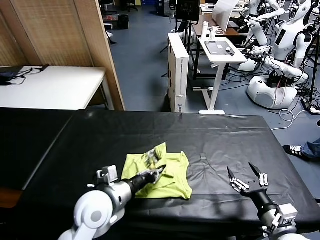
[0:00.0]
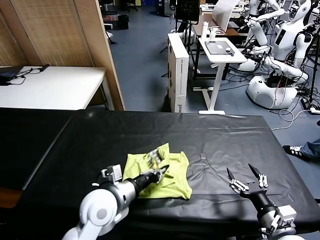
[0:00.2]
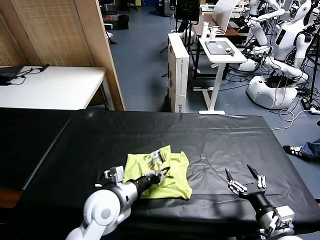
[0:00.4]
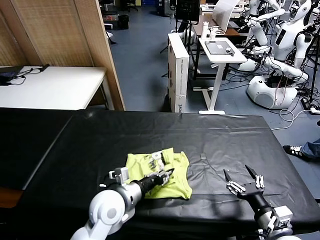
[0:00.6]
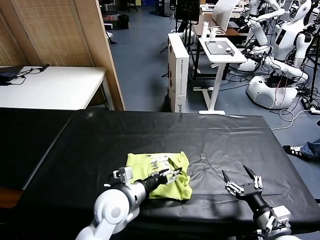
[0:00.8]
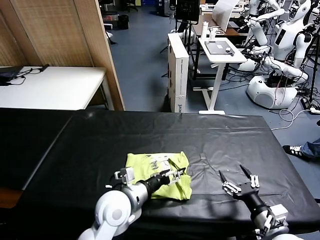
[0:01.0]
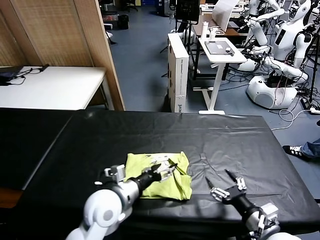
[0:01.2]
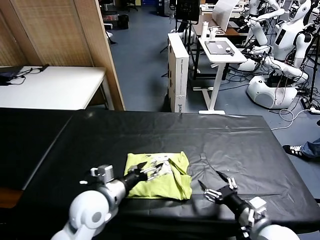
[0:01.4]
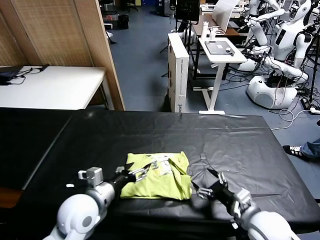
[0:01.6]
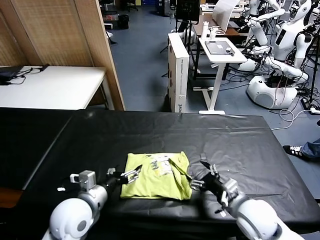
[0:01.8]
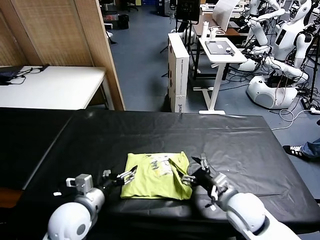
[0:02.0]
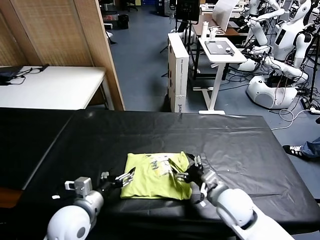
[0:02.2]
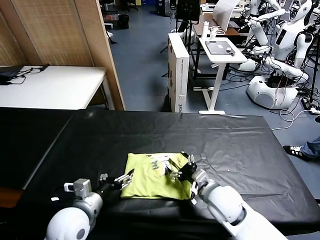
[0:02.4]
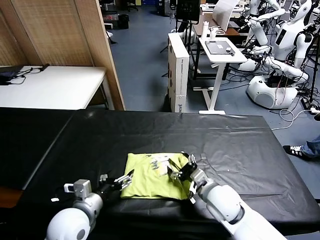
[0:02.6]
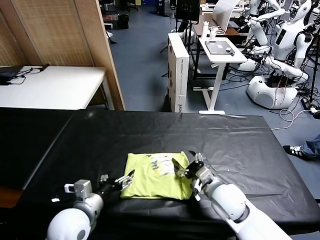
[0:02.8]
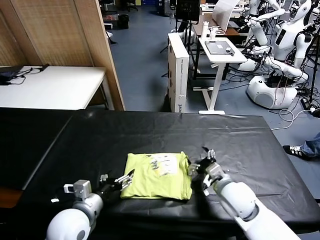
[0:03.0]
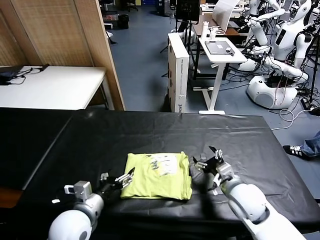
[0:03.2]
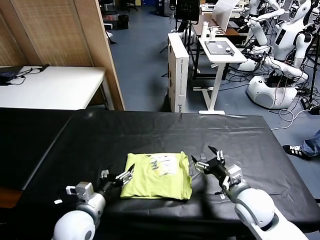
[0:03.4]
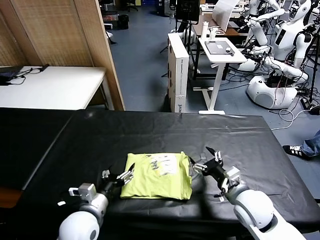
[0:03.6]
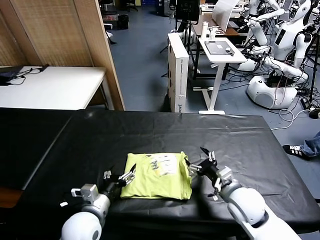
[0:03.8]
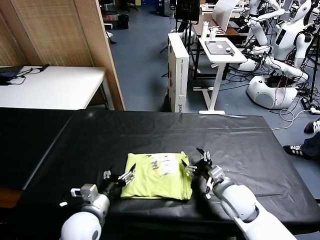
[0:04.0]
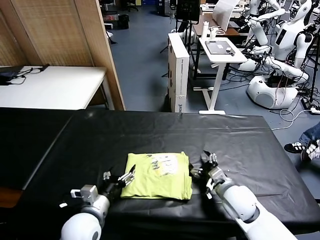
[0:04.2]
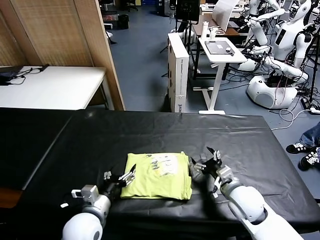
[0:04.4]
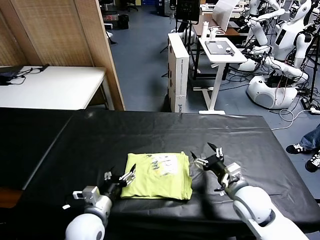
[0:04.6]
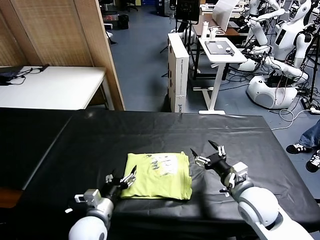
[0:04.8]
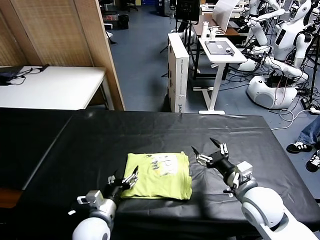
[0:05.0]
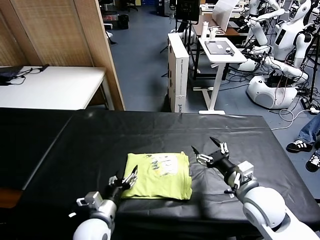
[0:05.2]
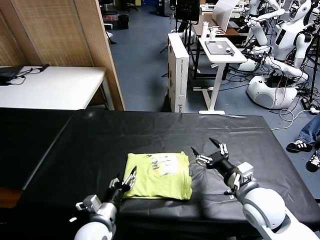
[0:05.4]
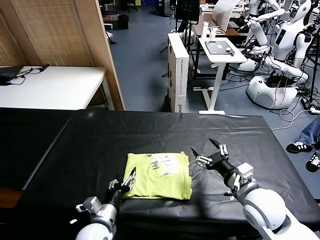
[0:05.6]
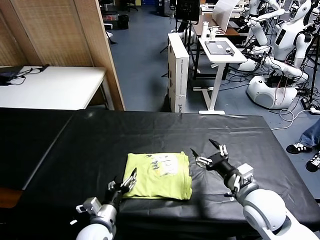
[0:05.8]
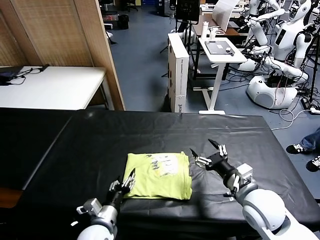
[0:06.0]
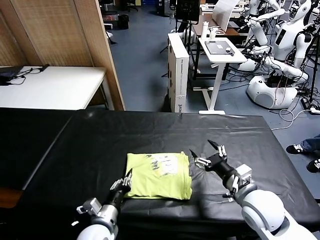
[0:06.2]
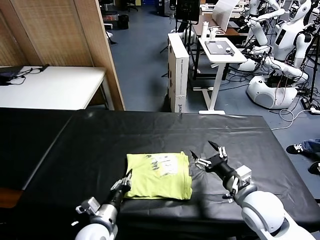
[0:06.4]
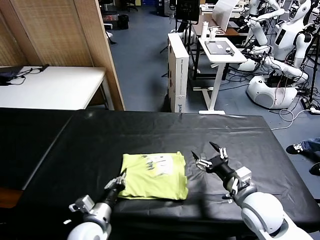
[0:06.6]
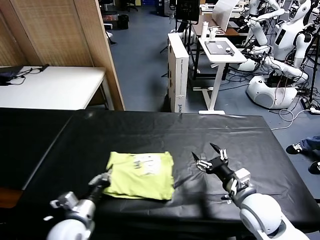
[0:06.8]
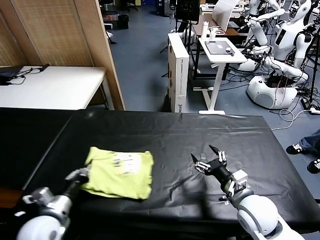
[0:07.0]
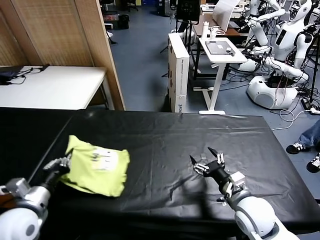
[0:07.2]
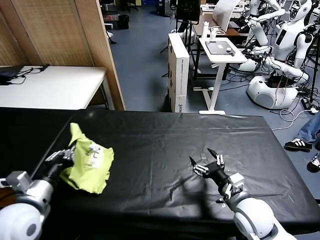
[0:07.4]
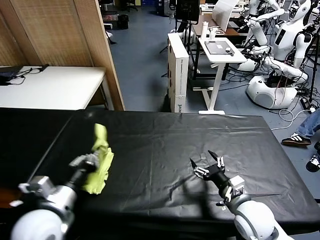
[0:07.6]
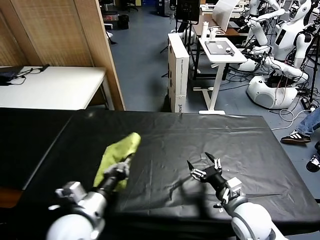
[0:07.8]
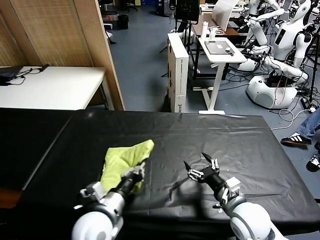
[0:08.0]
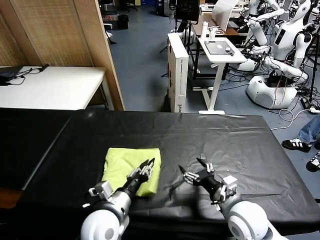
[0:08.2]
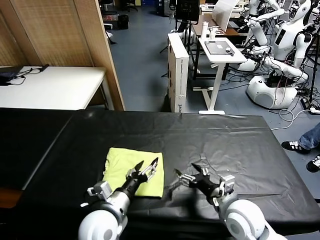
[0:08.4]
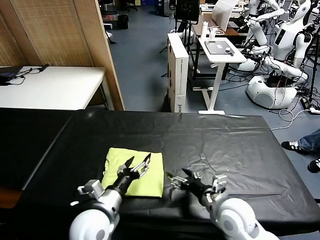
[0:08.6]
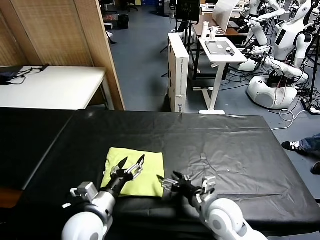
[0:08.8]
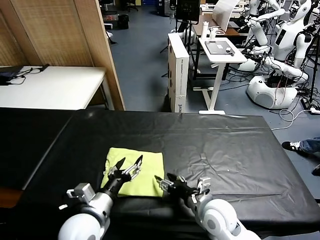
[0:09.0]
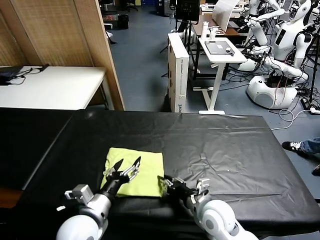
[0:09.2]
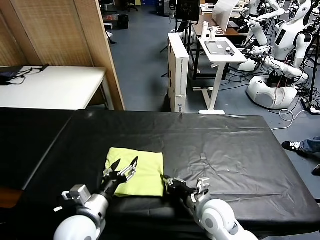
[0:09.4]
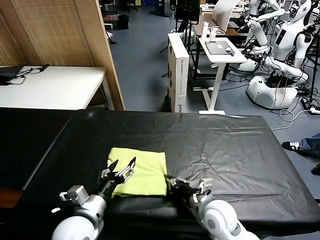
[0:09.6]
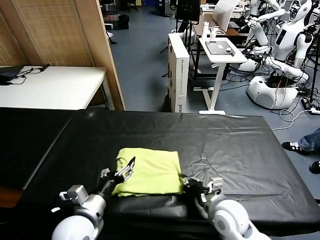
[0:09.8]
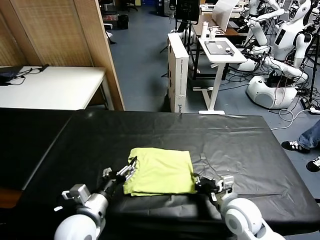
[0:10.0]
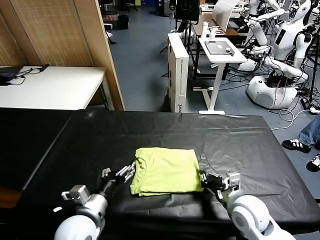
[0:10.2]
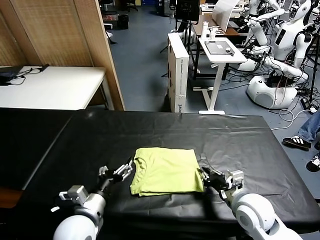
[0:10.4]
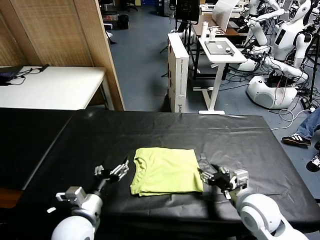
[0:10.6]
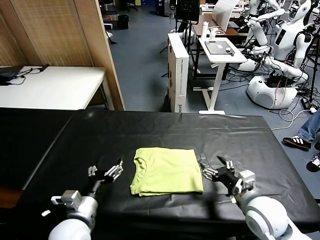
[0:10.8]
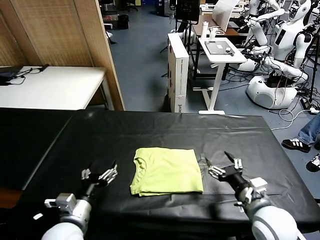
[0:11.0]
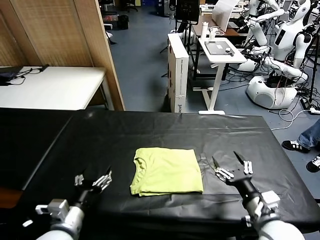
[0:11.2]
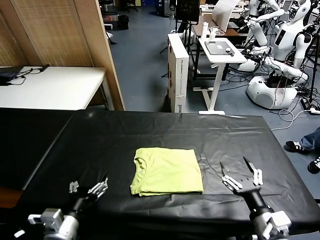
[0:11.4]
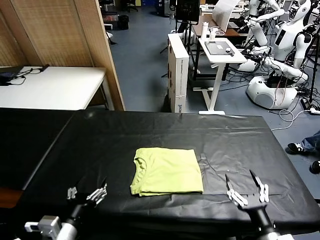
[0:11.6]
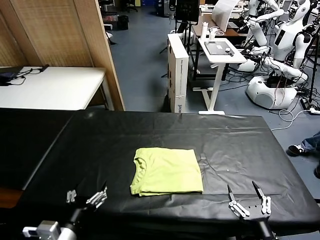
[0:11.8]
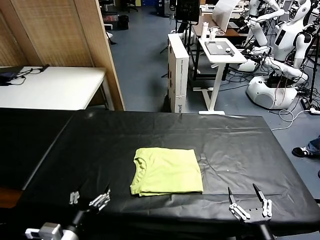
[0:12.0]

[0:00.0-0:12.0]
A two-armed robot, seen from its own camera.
Task of the whole recording: fold and organize the clothes.
Step, 0:01.2 to 0:08.2: Flip the folded clothes over with left gripper.
Step, 0:08.4 to 0:10.4: Drag the clothes to the center of the table.
0:00.0 to 0:01.6: The right gripper ends up approximately 5 cm from where it was. The left gripper opens.
0:01.6 to 0:03.0: The right gripper moves forward and to the left, approximately 10 cm, while the left gripper changes place by roughly 5 cm.
0:03.0 to 0:04.4: There are only small adjustments of the grippers.
0:04.4 to 0:06.0: The left gripper is displaced downward by roughly 5 cm, while the right gripper heads upward, covering some 5 cm.
0:06.0 to 0:07.6: The left gripper moves upward and to the left, about 20 cm, and closes its fingers, while the right gripper moves downward, some 5 cm.
0:07.6 to 0:09.0: The left gripper travels to the right and downward by roughly 10 cm, and opens up, while the right gripper heads to the left, covering about 10 cm.
0:09.0 to 0:10.4: The right gripper shifts roughly 10 cm to the right, and closes.
0:10.4 to 0:12.0: The left gripper moves backward, some 10 cm, while the right gripper heads backward, covering some 20 cm, and opens its fingers.

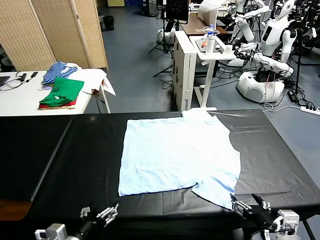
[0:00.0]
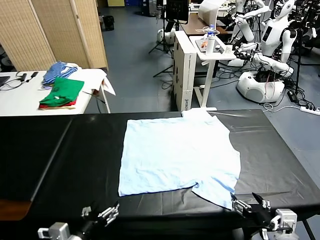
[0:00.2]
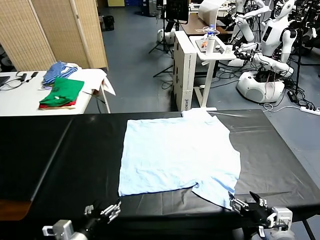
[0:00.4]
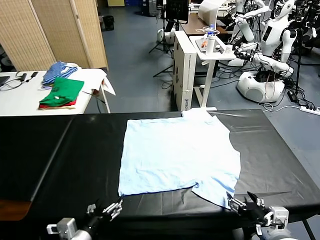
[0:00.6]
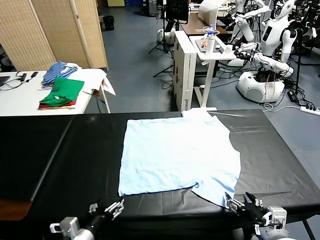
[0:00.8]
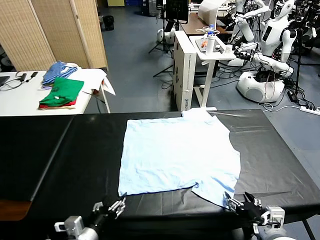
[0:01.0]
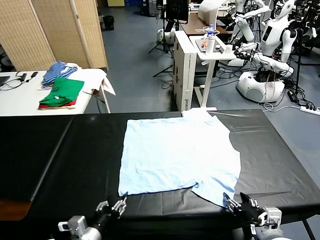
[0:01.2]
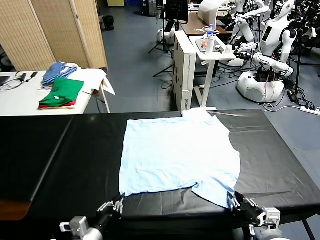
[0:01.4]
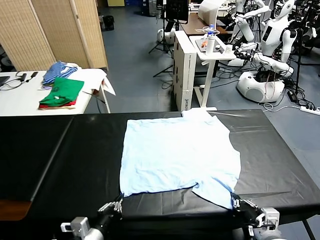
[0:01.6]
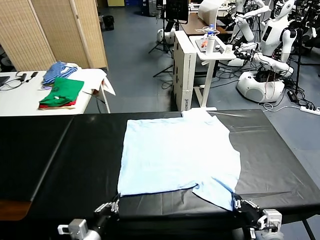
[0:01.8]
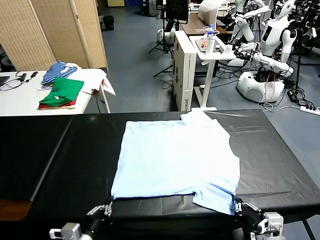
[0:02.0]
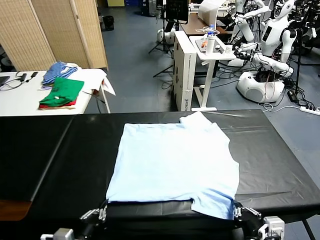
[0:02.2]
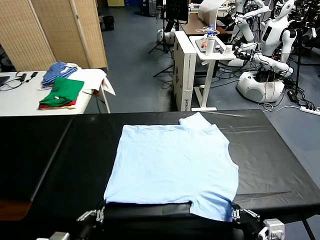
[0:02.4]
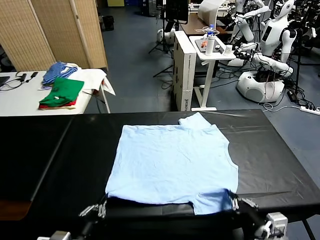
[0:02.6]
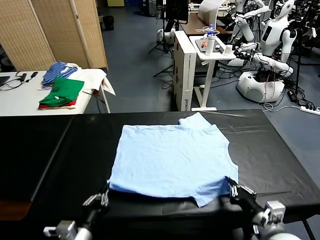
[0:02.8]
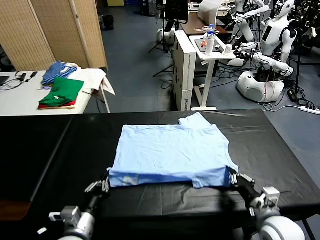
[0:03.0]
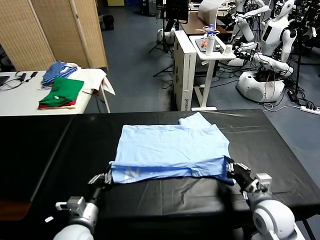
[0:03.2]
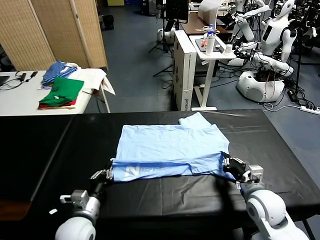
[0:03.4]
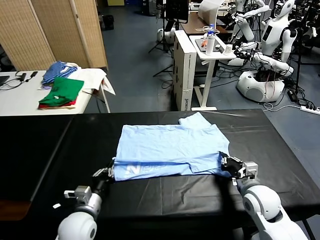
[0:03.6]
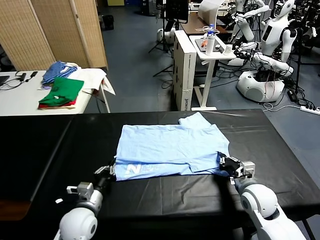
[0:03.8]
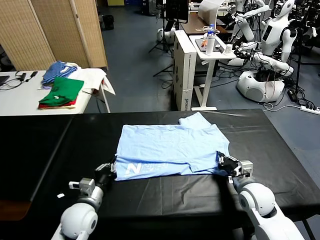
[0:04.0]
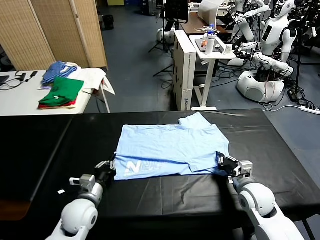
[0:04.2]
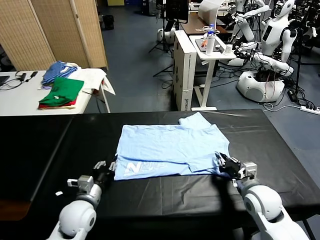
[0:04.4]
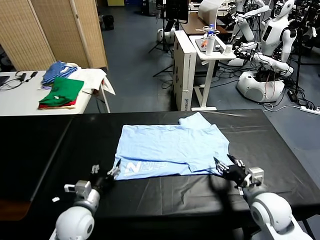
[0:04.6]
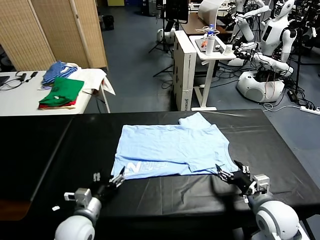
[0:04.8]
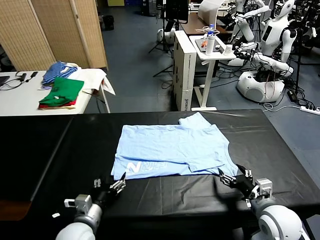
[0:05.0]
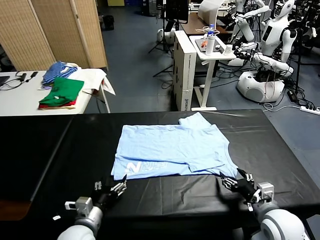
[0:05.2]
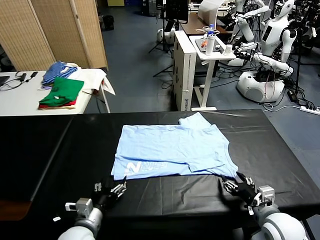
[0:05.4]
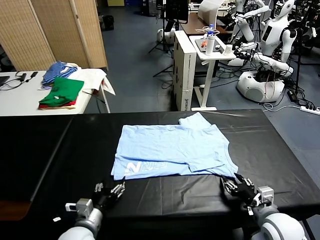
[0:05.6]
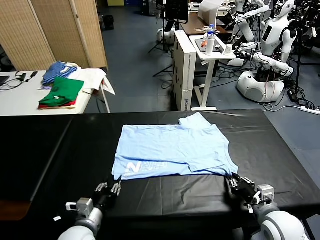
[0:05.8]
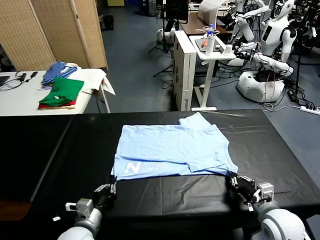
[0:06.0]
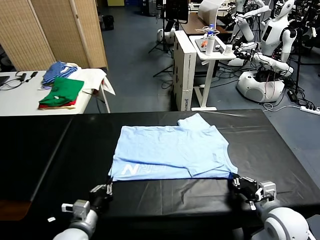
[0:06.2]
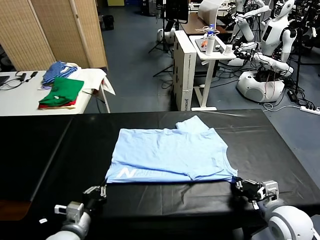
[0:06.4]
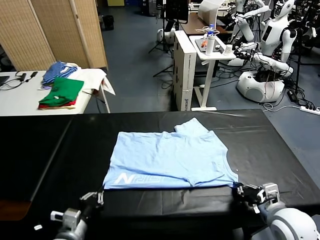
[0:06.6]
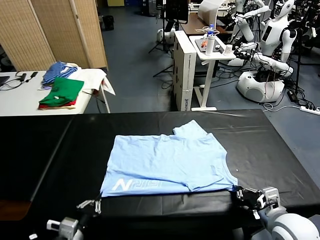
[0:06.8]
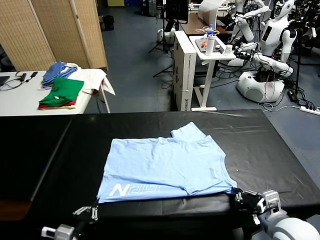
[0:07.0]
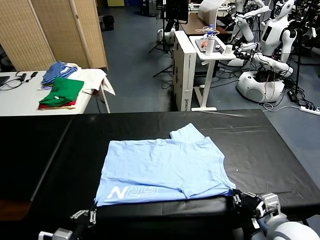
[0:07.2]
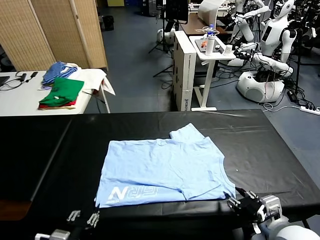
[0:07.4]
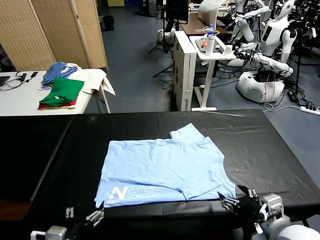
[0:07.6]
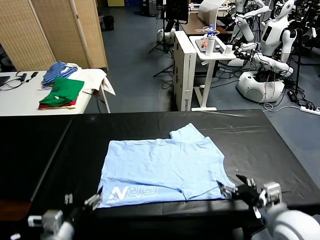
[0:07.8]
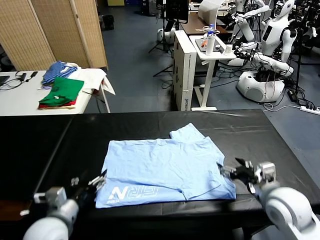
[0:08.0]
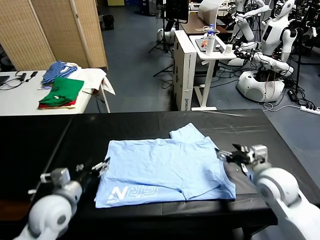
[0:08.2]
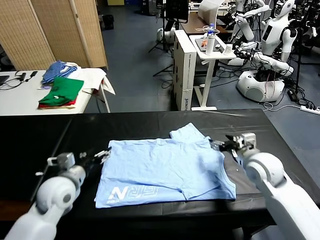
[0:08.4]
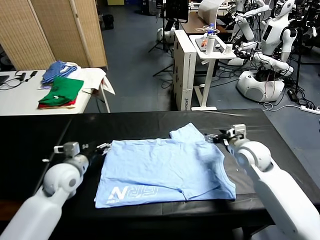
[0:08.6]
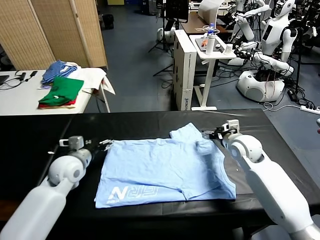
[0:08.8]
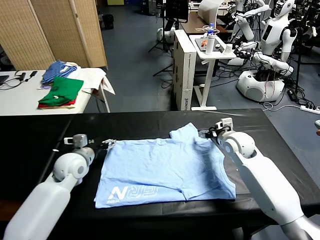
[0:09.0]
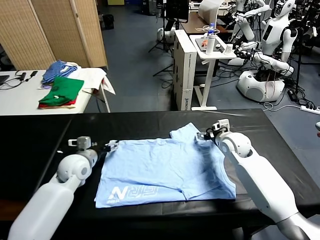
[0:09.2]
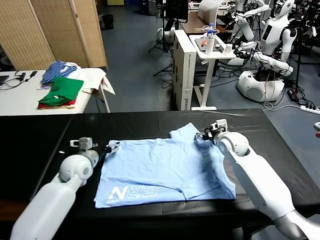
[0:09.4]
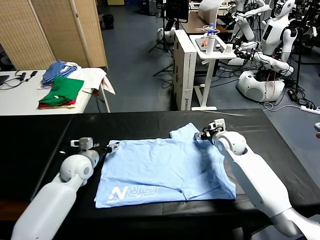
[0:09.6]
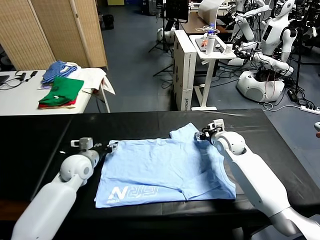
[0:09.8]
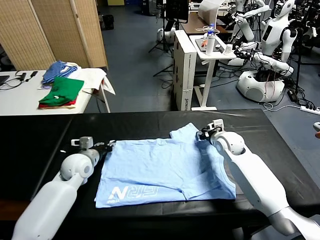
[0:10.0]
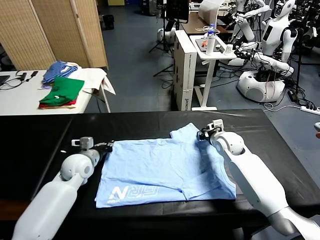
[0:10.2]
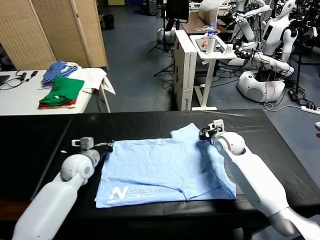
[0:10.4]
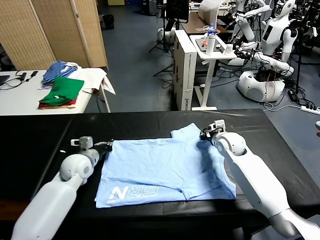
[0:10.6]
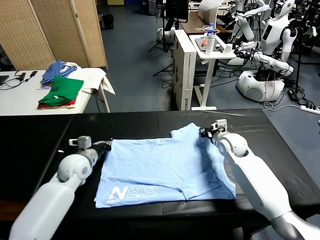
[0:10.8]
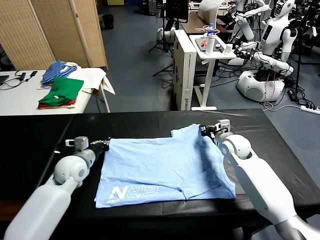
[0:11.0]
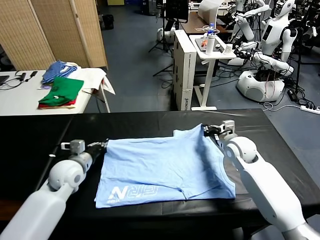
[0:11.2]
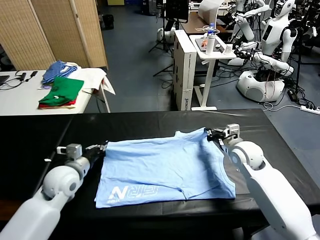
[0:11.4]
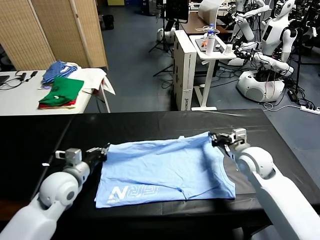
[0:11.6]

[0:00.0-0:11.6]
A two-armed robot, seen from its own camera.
Task of the whole recording: fold and organize the clothes.
Step, 0:00.0 to 0:01.8: use both grippers simultaneously to clamp the lower edge of the clothing fabric.
Step, 0:02.0 to 0:04.4: use both grippers to drag the lower edge of the fabric forward and fold it over the upper edge.
Step, 0:04.6 to 0:07.2: Drag the clothes downward with both gripper.
Step, 0:07.4 to 0:10.8: use both grippers simultaneously to clamp the upper edge of the clothing fabric.
0:01.4 to 0:02.8: The right gripper heads forward, covering roughly 10 cm.
0:02.8 to 0:04.4: The left gripper shifts approximately 10 cm forward, and opens. Meanwhile the right gripper opens.
0:04.4 to 0:05.8: The left gripper is displaced backward by about 5 cm, and closes; the right gripper closes its fingers.
0:05.8 to 0:07.2: The left gripper goes approximately 10 cm backward and upward, and opens; the right gripper travels upward and backward by approximately 10 cm, and opens.
0:07.2 to 0:08.8: Both grippers move forward, about 30 cm. The left gripper opens.
0:08.8 to 0:10.2: The right gripper closes its fingers. The left gripper closes its fingers.
0:10.2 to 0:11.6: The grippers both shift backward and upward by about 15 cm.
